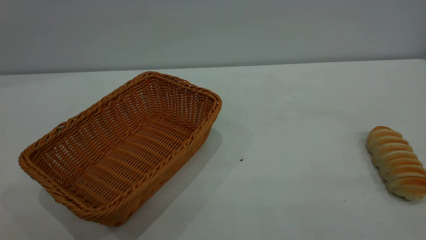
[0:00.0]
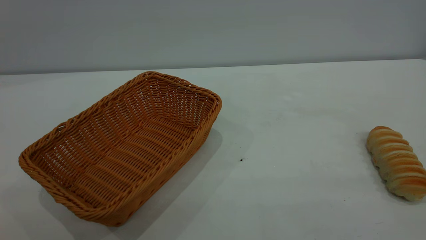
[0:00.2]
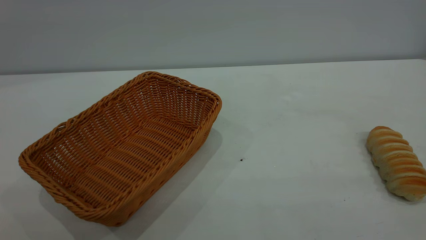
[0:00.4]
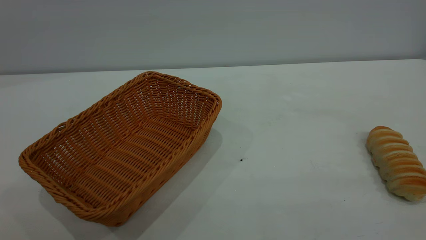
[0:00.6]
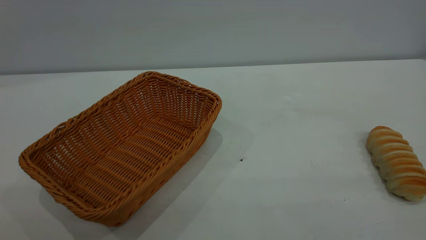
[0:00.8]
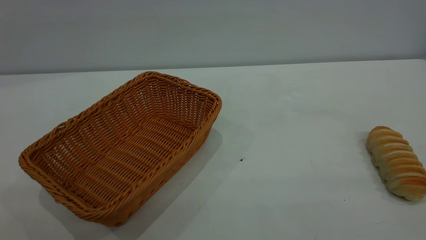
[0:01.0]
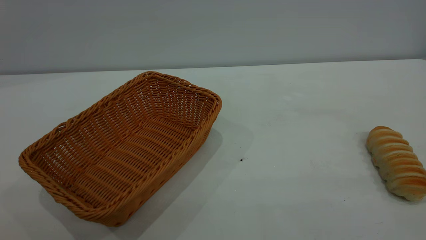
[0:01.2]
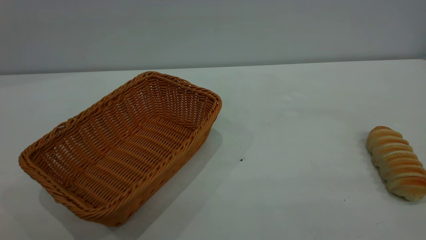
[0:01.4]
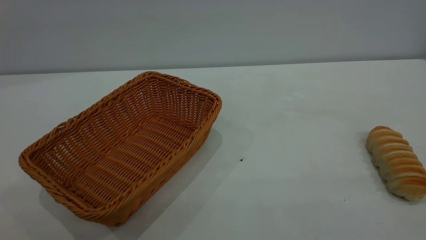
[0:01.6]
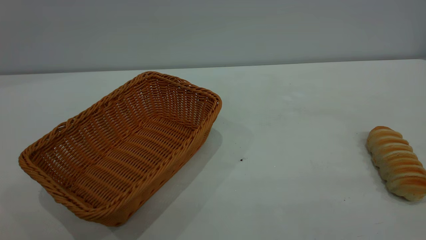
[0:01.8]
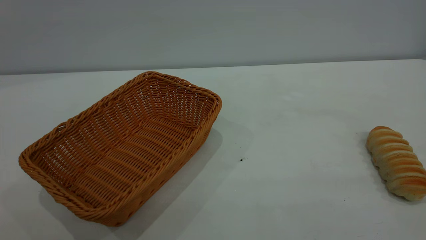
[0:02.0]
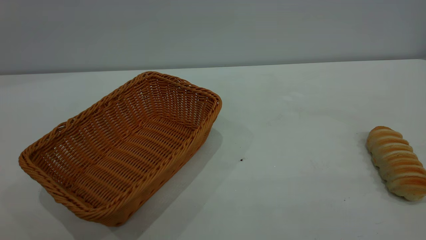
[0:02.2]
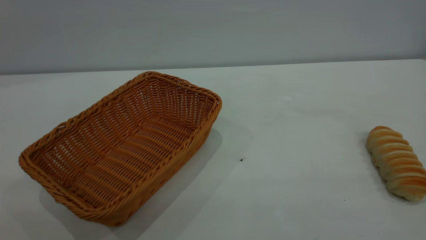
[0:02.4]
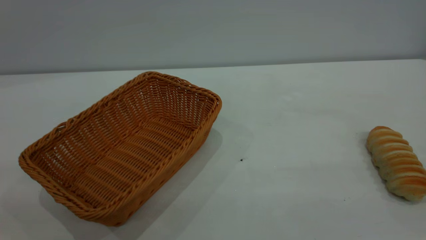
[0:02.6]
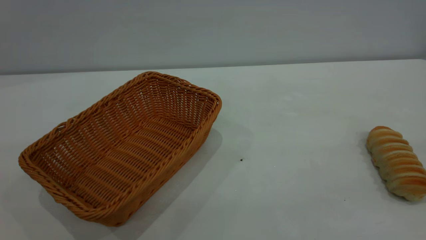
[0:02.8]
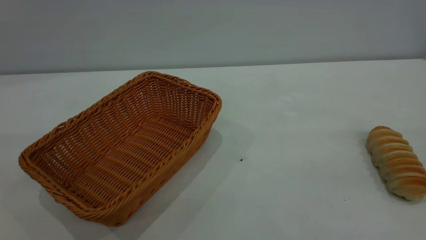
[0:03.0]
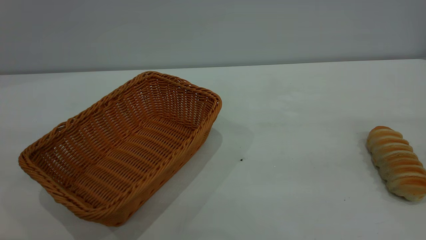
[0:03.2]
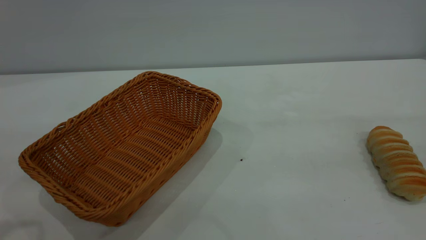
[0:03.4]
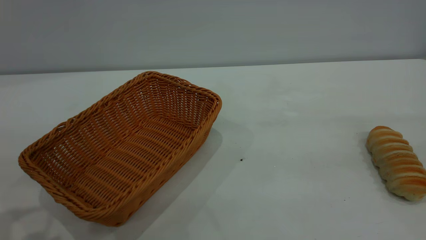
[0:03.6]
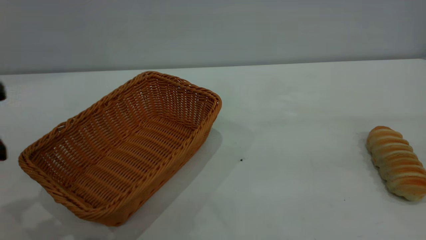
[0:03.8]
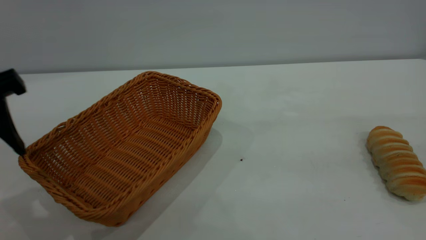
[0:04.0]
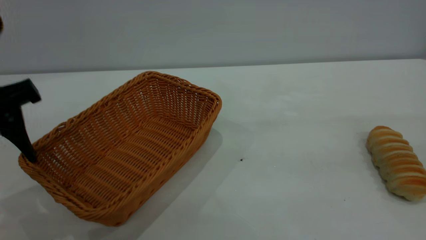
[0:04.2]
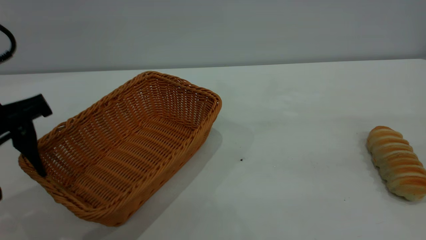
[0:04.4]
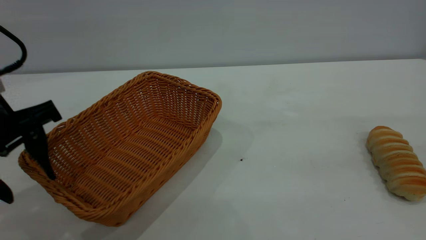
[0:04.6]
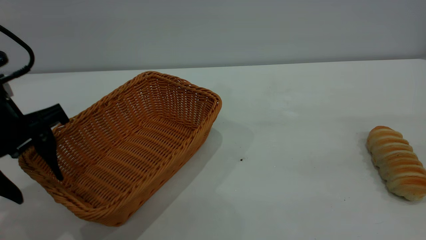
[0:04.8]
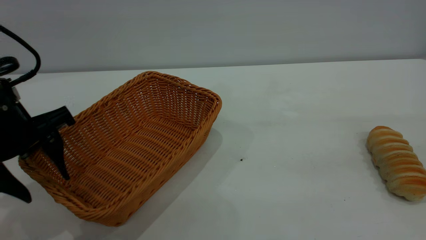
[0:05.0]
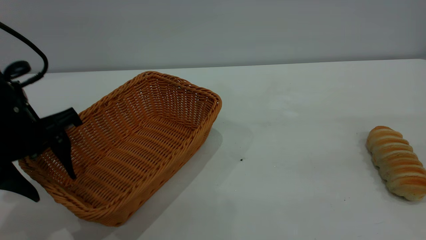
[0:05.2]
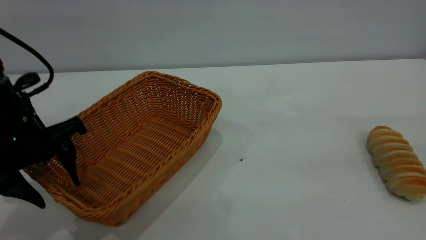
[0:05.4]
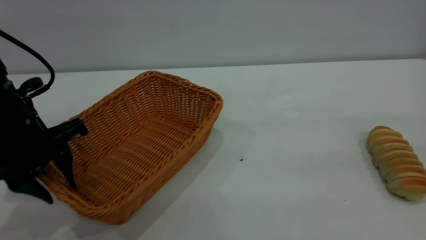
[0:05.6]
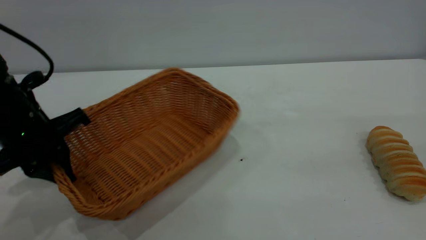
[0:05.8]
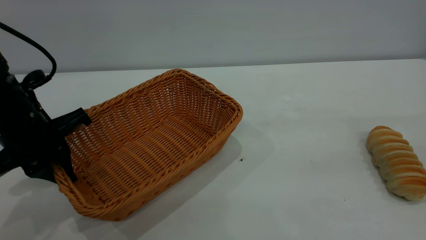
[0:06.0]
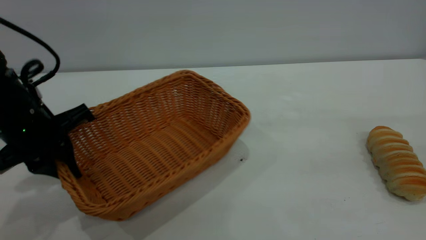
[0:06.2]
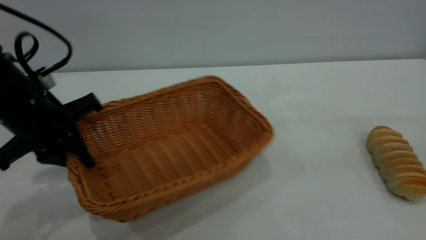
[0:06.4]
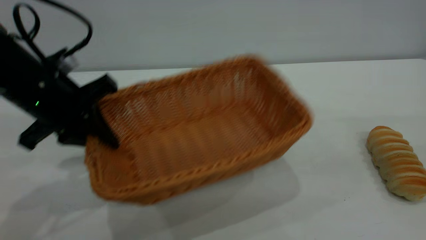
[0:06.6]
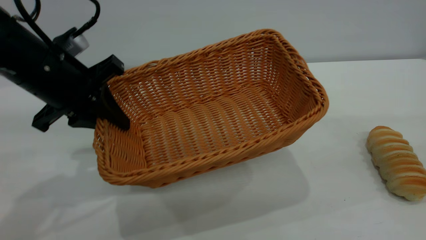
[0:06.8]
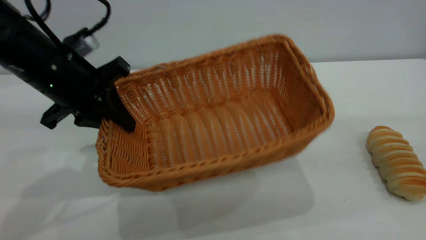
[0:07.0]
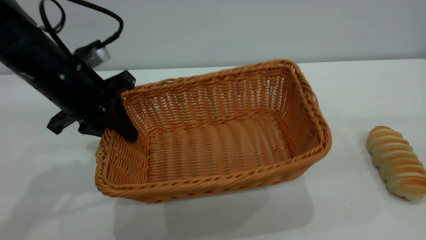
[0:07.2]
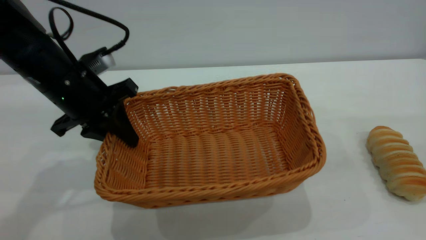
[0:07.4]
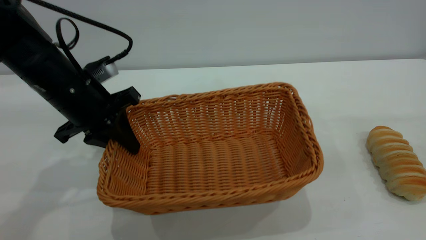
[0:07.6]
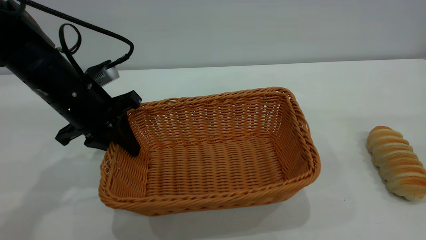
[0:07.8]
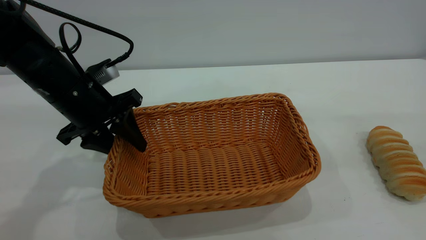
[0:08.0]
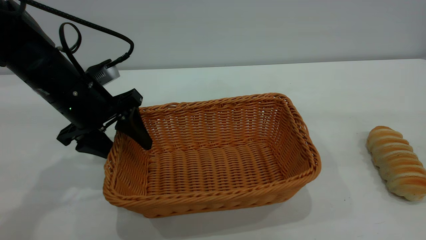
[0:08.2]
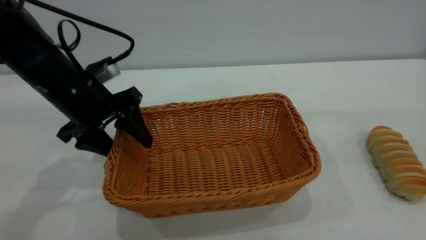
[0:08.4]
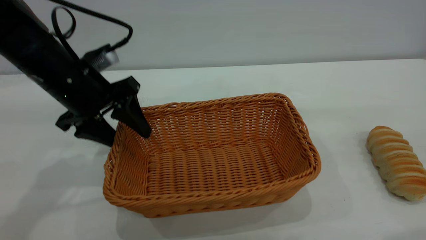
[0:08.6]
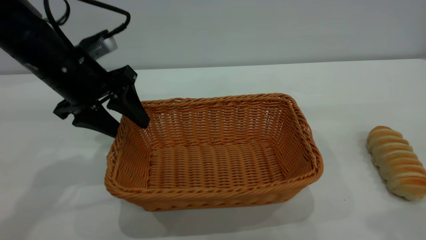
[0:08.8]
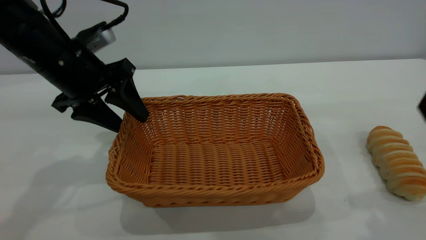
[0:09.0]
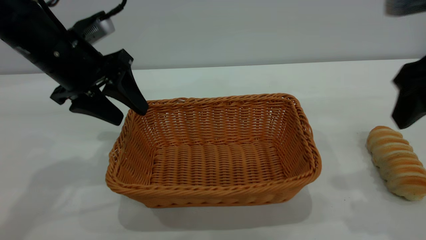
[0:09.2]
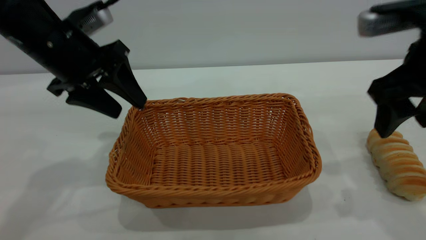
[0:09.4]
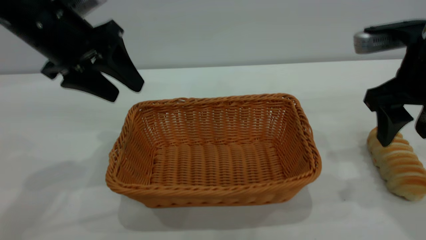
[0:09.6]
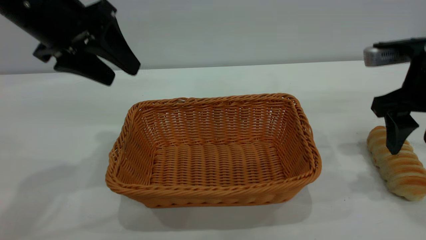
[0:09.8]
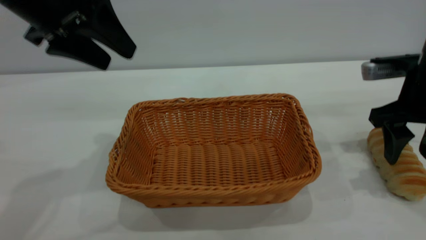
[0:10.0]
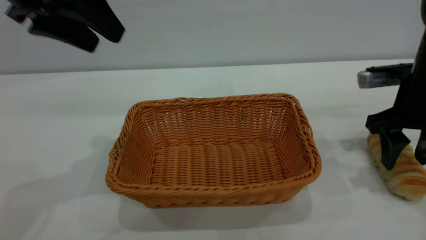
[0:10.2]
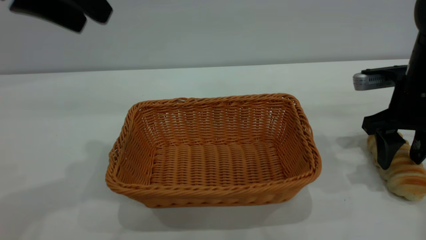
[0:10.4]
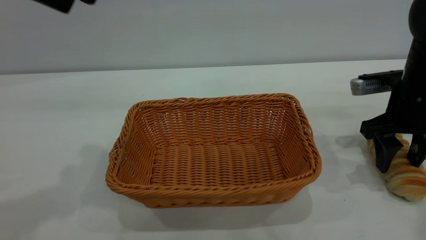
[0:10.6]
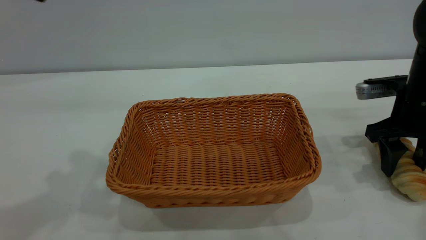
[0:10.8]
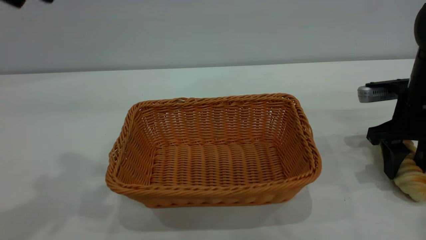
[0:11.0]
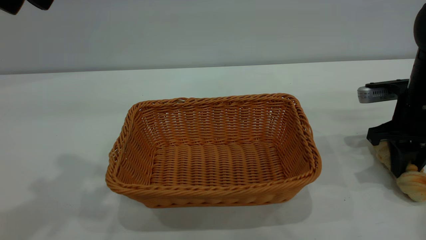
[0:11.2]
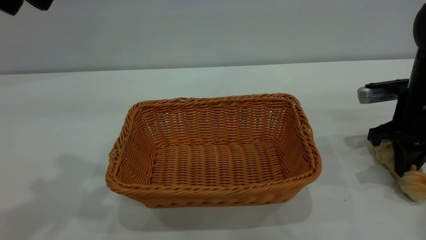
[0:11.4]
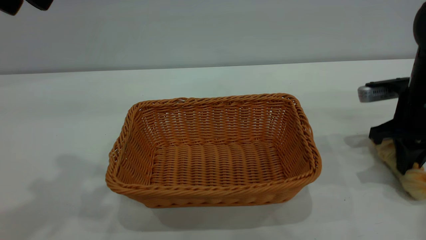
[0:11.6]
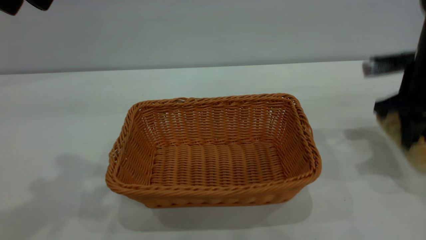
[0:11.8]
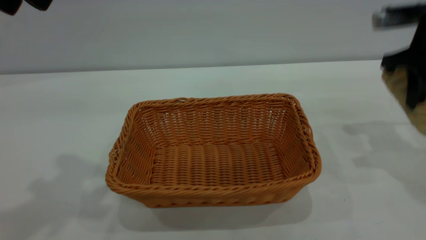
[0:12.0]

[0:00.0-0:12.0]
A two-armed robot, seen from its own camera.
Task of the whole recording: One hand grasps the yellow basket and places it in the middle of the table, while the other hand picks up the long bread and puts it into the yellow basket.
Step, 0:00.0 to 0:09.2: Move the basket to the center of view.
0:00.0 to 0:01.6: Neither gripper changes place.
0:03.0 to 0:04.4: The left gripper heads forward and downward, covering some 20 cm.
0:04.4 to 0:06.0: The left gripper is displaced downward by about 5 cm, and closes up.
0:06.0 to 0:07.6: The left gripper is displaced forward by about 5 cm.
0:07.6 to 0:09.0: The right gripper shifts about 15 cm forward and downward, and opens up, while the left gripper opens up.
0:09.0 to 0:10.4: The right gripper is displaced downward and forward by roughly 20 cm, while the left gripper shifts about 15 cm upward.
0:10.4 to 0:12.0: The right gripper is displaced upward by roughly 10 cm, and closes up.

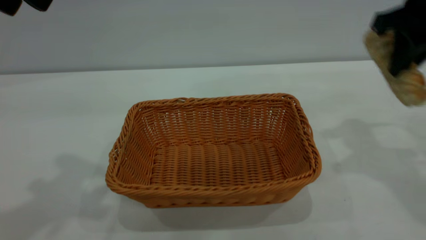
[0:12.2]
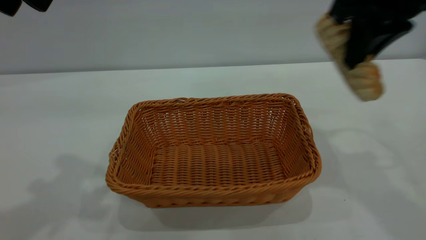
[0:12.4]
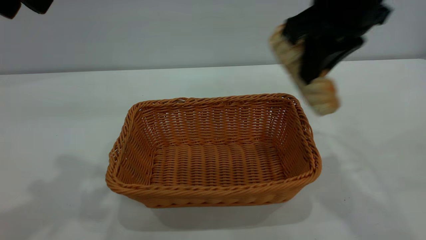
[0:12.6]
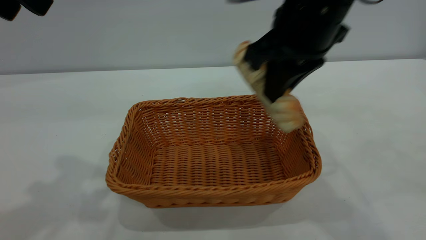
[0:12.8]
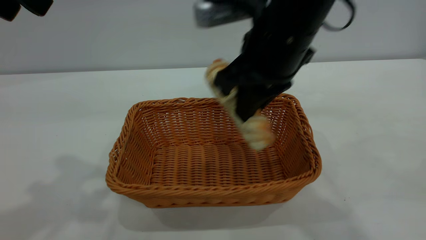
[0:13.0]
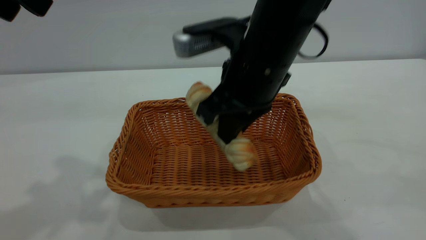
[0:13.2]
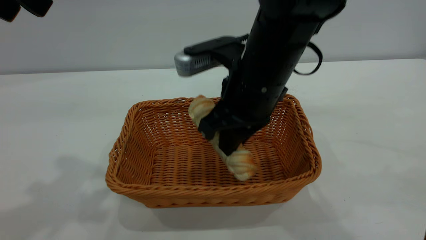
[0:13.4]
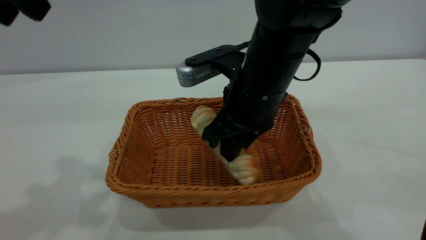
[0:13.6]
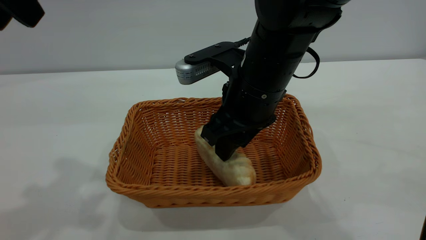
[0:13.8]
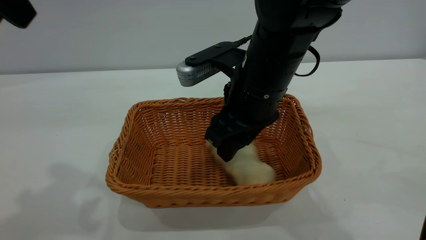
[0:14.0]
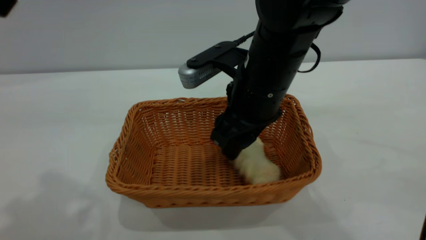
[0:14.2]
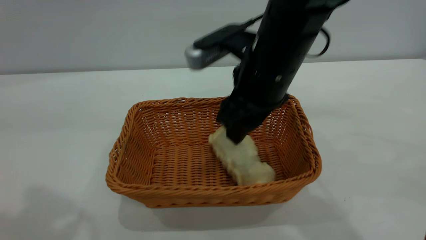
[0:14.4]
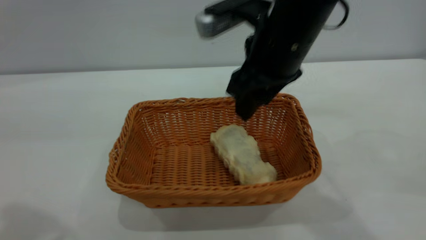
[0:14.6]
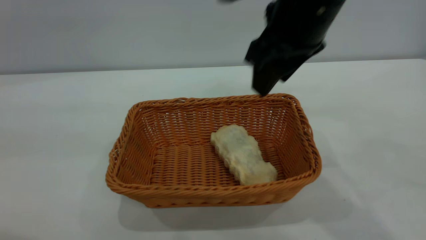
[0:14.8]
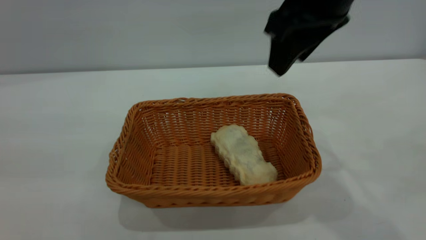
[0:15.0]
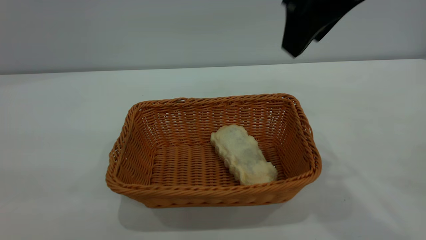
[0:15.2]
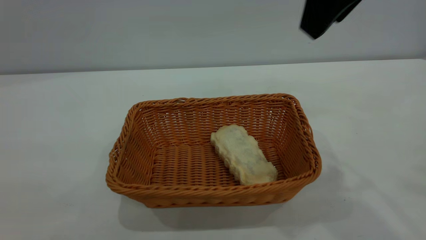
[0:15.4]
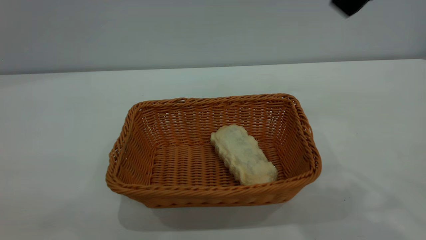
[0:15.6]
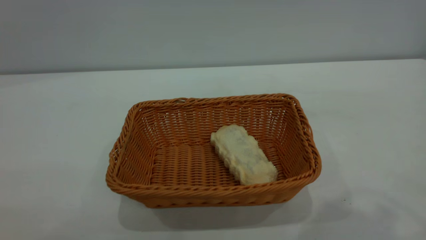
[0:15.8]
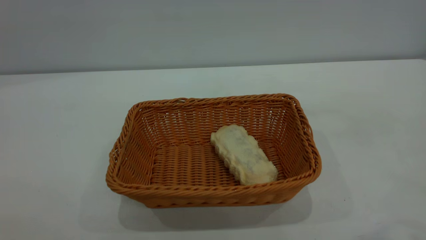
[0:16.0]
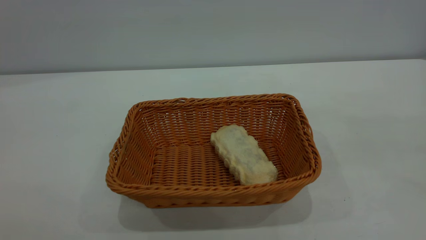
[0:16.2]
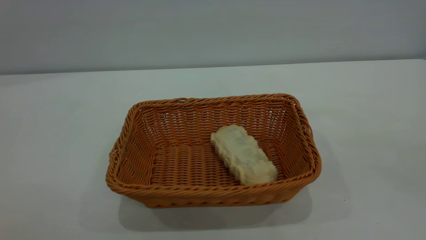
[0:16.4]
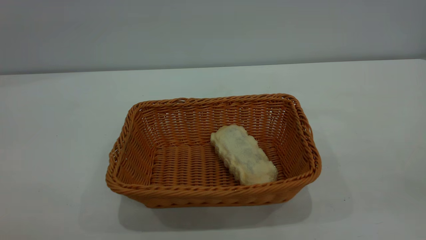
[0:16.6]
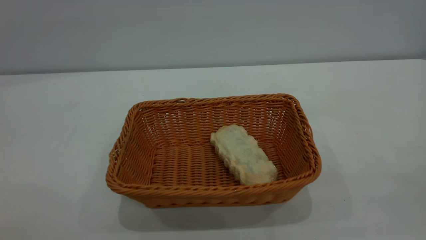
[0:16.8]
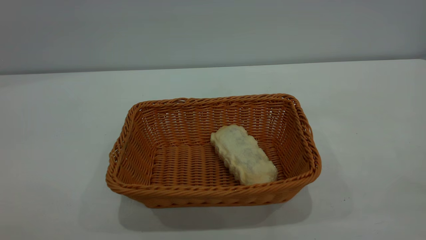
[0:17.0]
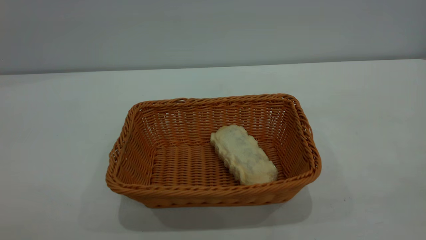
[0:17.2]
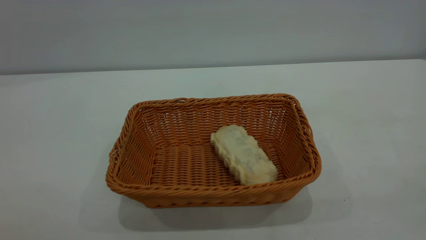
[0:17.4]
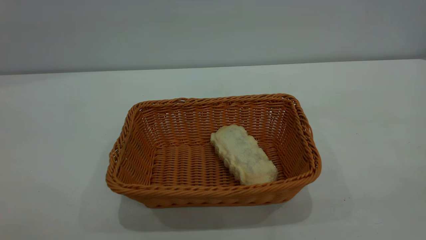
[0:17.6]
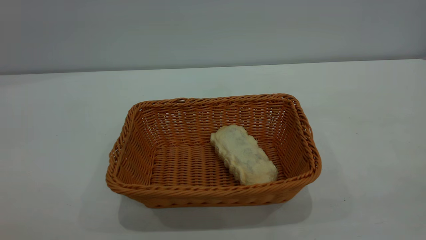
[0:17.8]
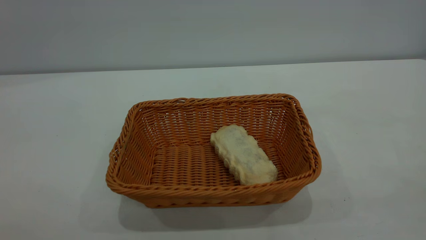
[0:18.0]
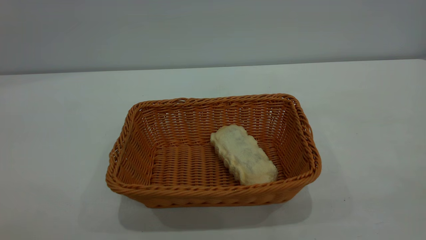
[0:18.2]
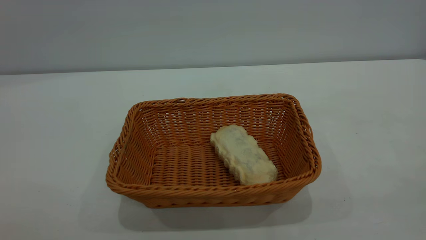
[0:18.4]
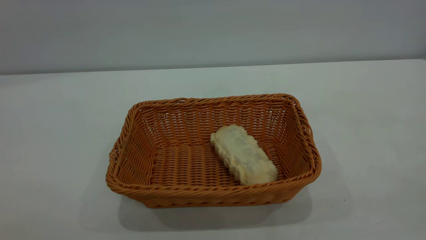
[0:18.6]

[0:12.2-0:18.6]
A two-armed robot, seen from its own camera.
Task of the whole recording: One hand grasps the yellow basket and places it in the middle of the table, while the other hand picks up the long bread and puts it into the yellow basket.
Step, 0:12.2 to 0:14.8: place the bread into the basket.
0:12.2 to 0:13.8: The right gripper moves to the left and downward, approximately 20 cm, and opens up.
0:13.8 to 0:15.4: The right gripper travels upward and to the right by some 20 cm; the left gripper is displaced backward by some 25 cm.
0:15.4 to 0:17.0: The right gripper shifts approximately 30 cm backward and to the right.
